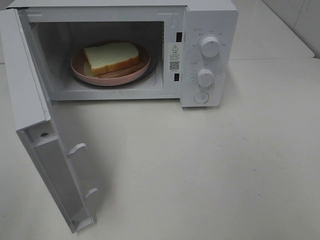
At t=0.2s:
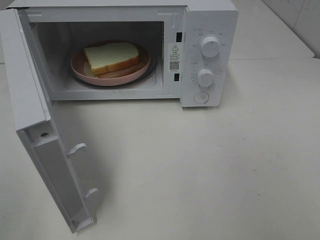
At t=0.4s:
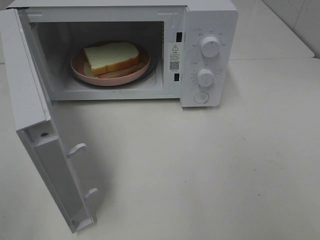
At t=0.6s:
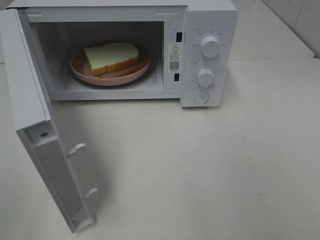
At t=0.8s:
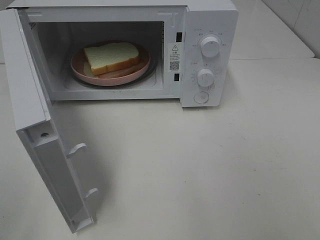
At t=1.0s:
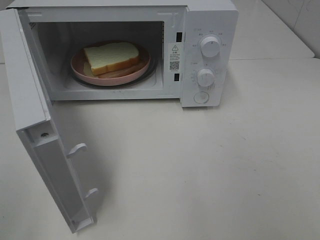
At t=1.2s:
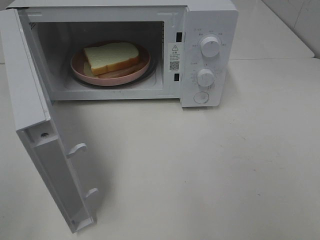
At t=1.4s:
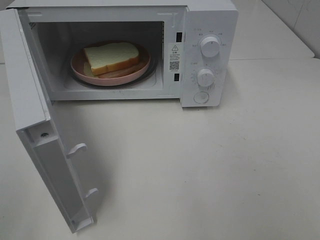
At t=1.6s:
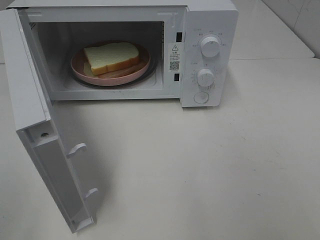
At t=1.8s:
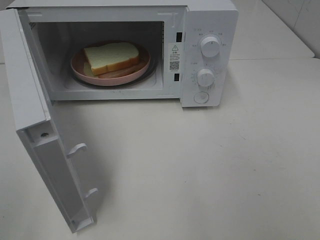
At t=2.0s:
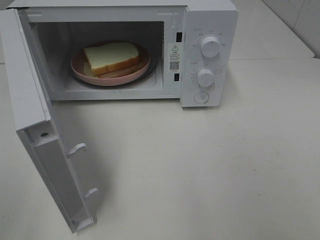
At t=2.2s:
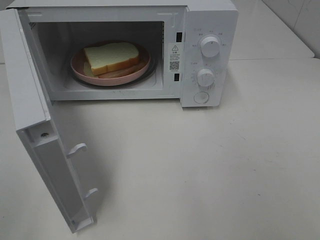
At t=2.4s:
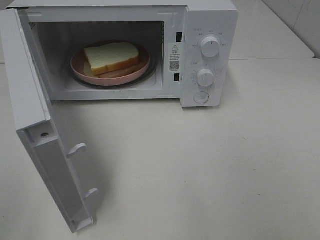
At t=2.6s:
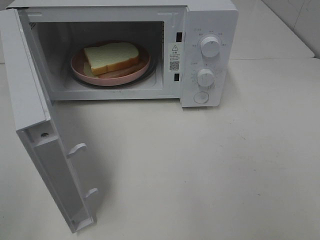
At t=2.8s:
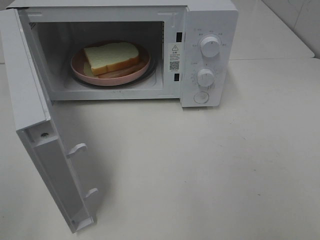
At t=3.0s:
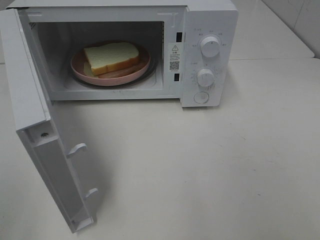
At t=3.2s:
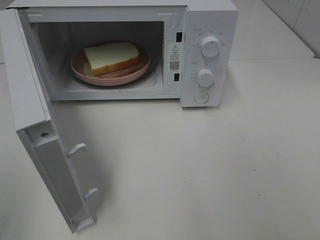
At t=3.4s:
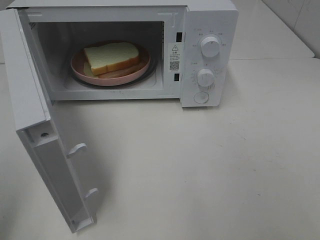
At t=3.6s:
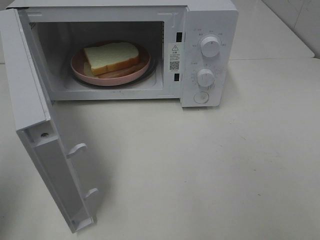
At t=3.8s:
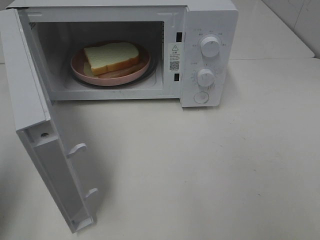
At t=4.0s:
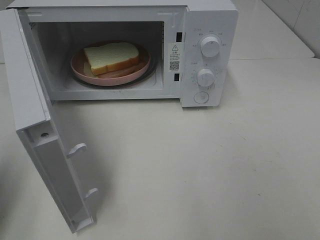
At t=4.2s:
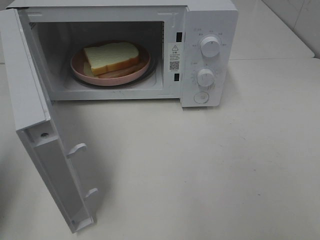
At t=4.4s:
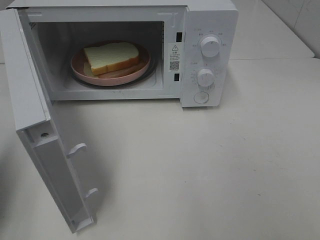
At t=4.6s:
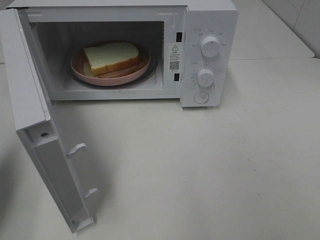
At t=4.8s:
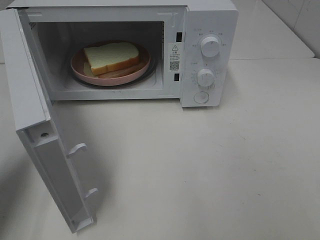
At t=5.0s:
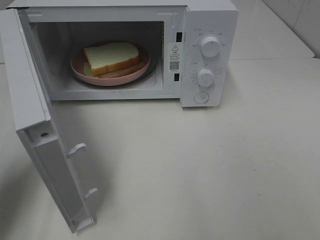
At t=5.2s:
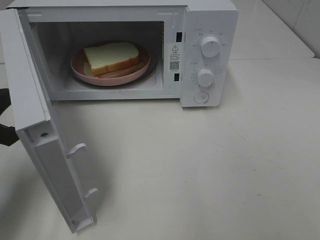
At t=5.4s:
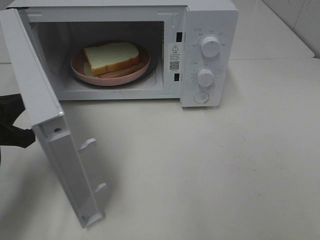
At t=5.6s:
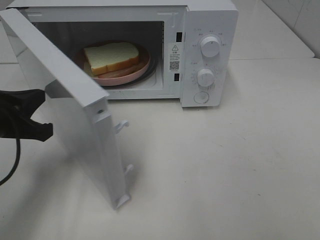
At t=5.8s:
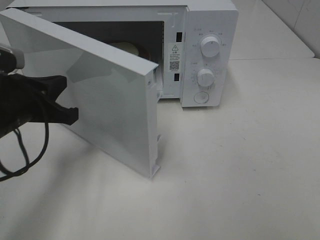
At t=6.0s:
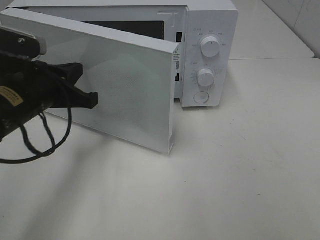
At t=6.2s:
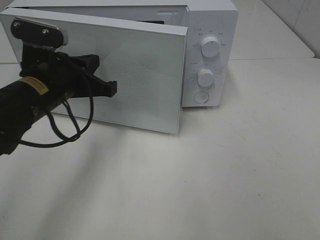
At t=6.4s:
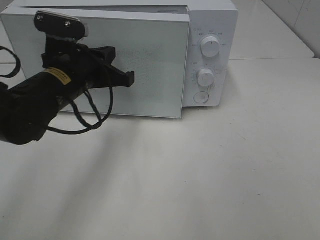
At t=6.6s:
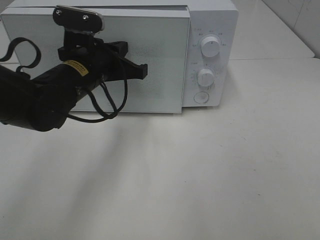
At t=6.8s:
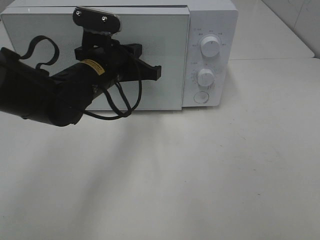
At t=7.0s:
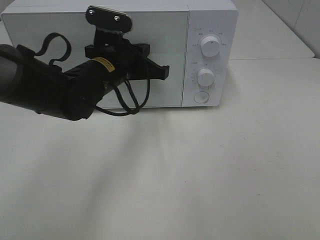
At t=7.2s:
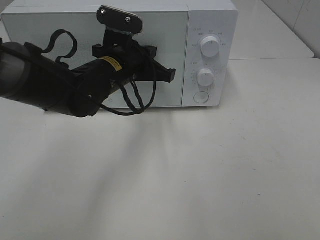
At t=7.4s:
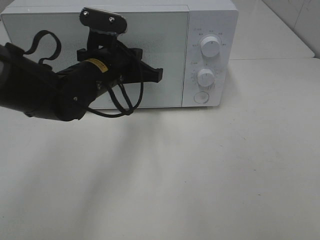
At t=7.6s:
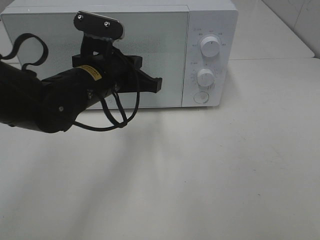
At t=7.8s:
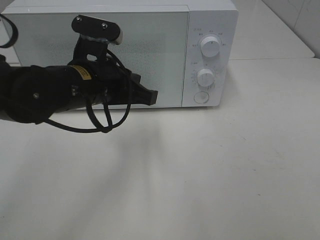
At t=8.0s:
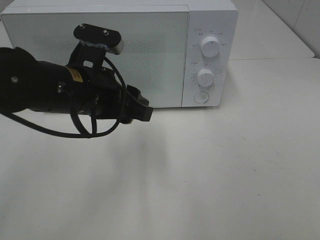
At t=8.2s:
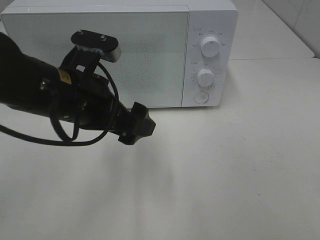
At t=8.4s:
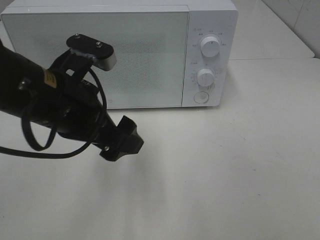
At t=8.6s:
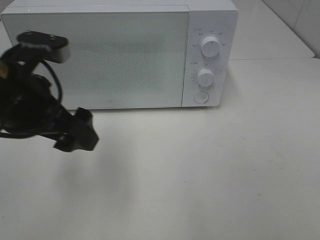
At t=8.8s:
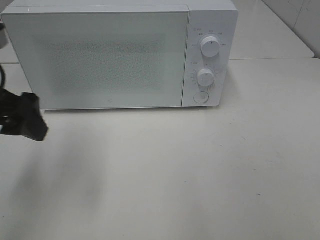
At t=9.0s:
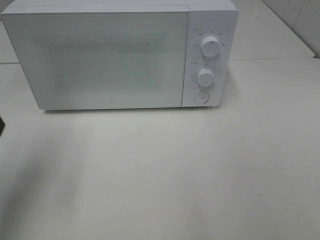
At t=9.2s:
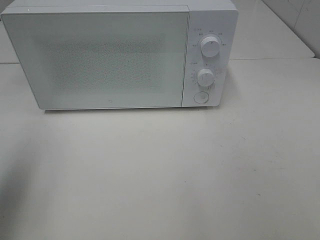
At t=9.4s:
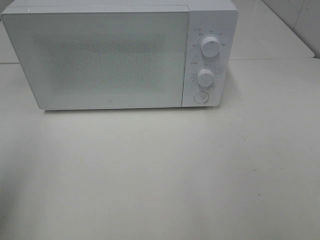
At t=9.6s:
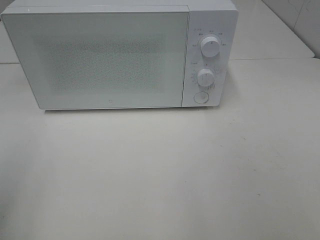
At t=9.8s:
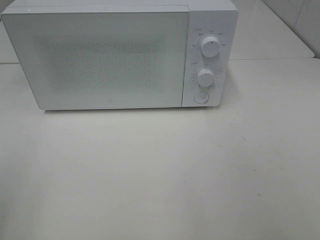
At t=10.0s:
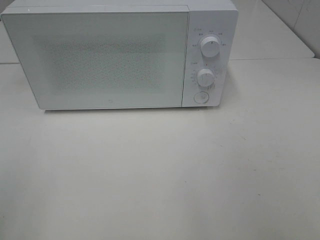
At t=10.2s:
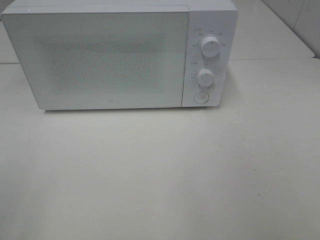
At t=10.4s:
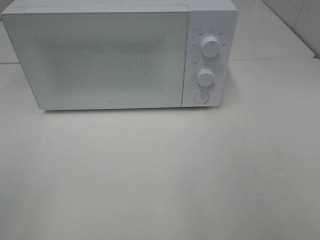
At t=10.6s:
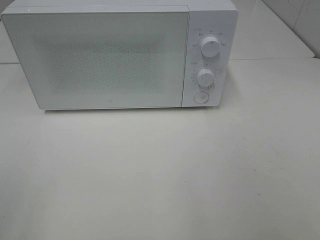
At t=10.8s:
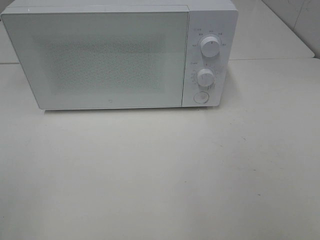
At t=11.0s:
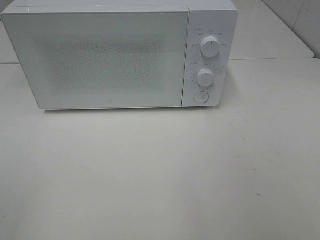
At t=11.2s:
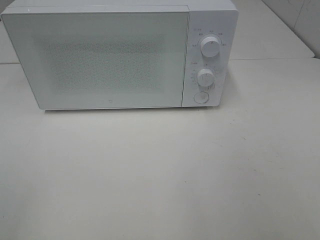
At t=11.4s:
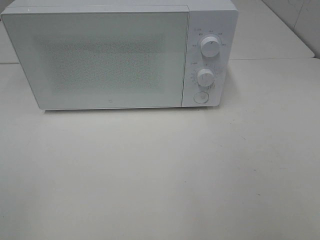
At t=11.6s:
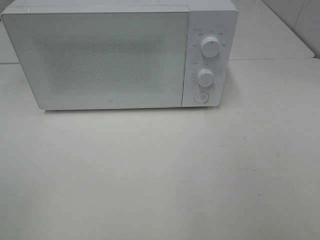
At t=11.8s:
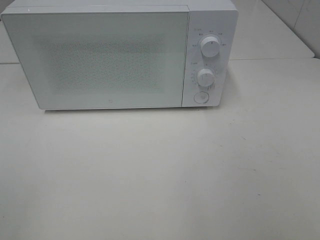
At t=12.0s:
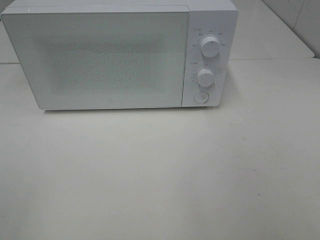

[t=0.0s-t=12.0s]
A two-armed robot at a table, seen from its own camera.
Task of the whole recording: Heat Sandwich.
Step, t=0.0s to t=8.0s: Left hand: close the microwave door.
t=1.6s to t=3.0s: Neither gripper changes place.
t=3.0s to t=4.4s: The left gripper is displaced forward by some 15 cm, and closes its fingers.
t=4.4s to t=6.0s: The left gripper shifts roughly 20 cm to the right and forward.
t=6.0s to t=7.6s: The left gripper travels to the right by roughly 10 cm.
t=7.6s to t=9.0s: The left gripper goes about 25 cm to the left, upward and backward, and opens up.
t=9.0s to t=10.4s: The left gripper moves backward, roughly 20 cm.

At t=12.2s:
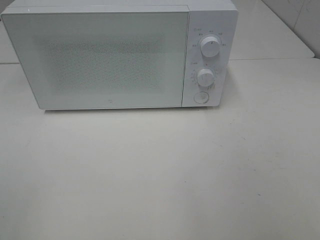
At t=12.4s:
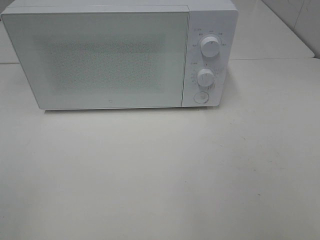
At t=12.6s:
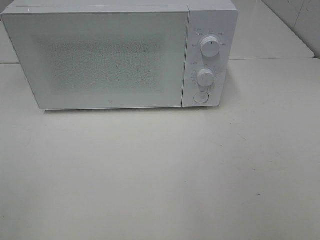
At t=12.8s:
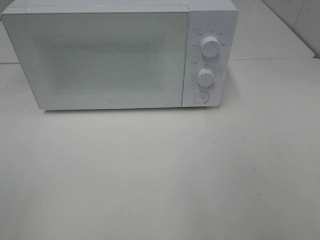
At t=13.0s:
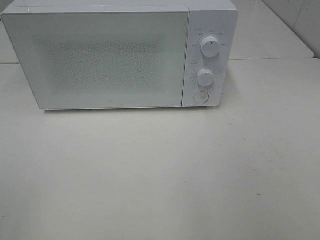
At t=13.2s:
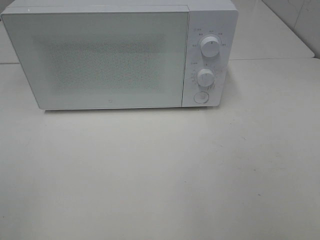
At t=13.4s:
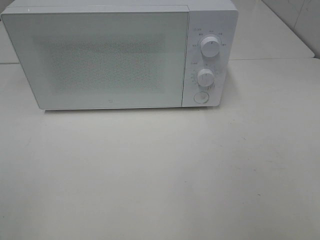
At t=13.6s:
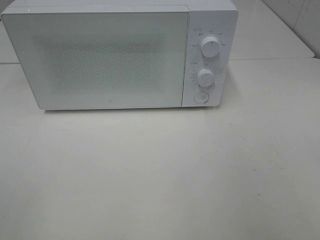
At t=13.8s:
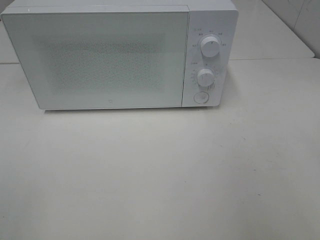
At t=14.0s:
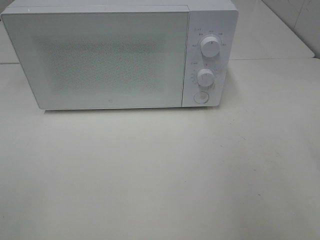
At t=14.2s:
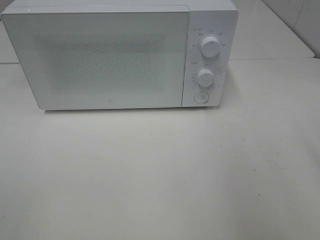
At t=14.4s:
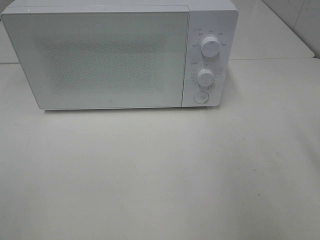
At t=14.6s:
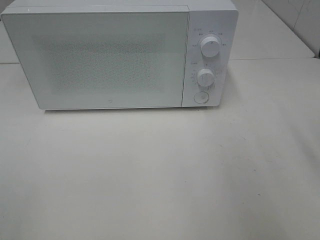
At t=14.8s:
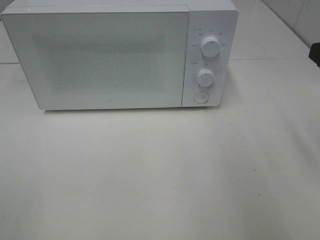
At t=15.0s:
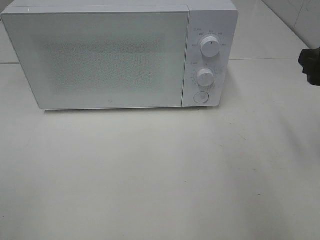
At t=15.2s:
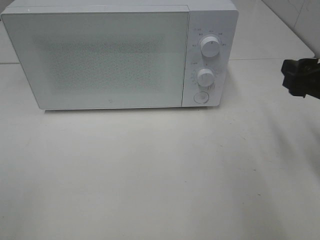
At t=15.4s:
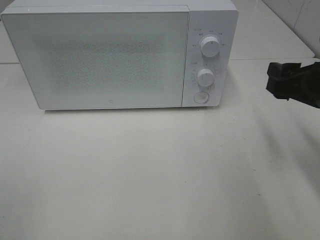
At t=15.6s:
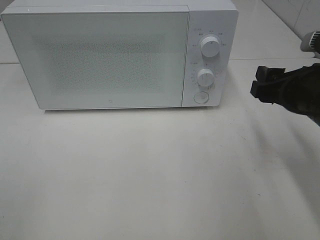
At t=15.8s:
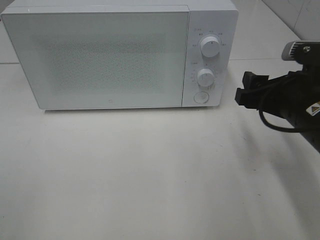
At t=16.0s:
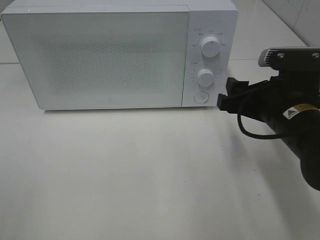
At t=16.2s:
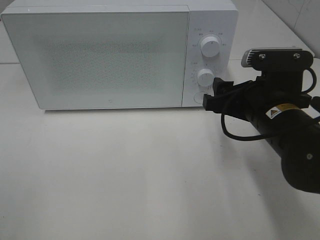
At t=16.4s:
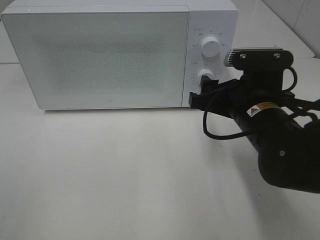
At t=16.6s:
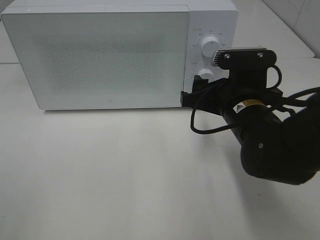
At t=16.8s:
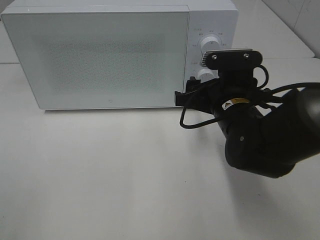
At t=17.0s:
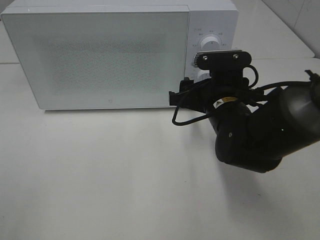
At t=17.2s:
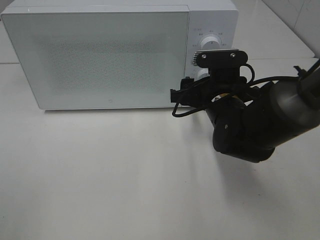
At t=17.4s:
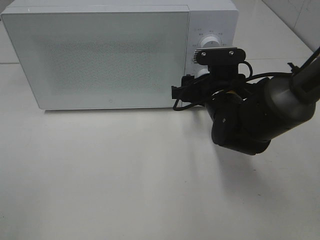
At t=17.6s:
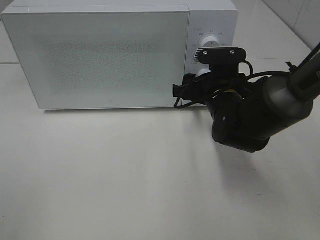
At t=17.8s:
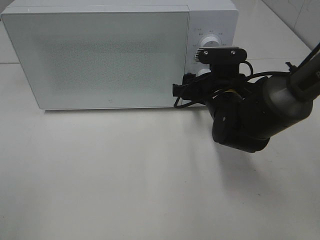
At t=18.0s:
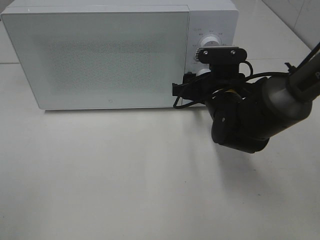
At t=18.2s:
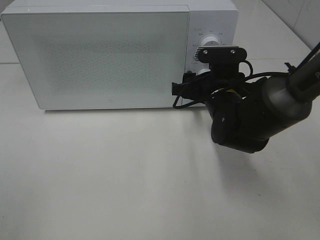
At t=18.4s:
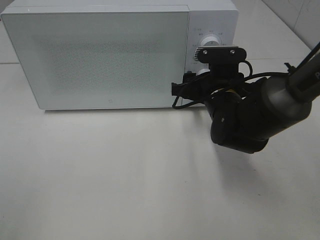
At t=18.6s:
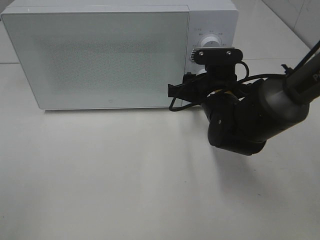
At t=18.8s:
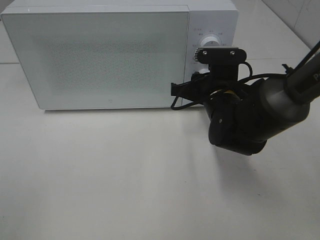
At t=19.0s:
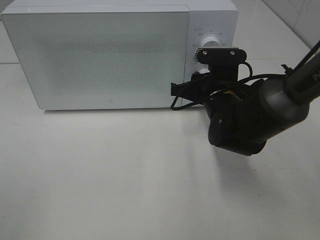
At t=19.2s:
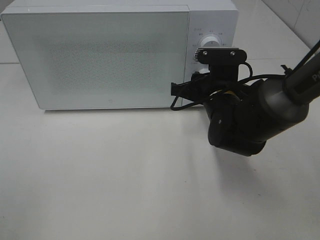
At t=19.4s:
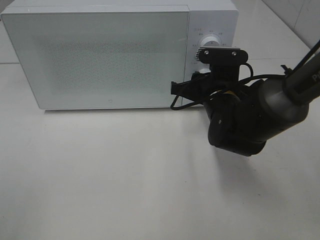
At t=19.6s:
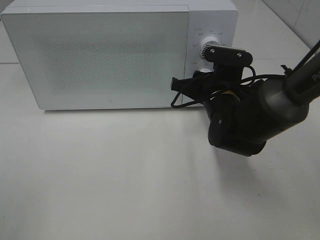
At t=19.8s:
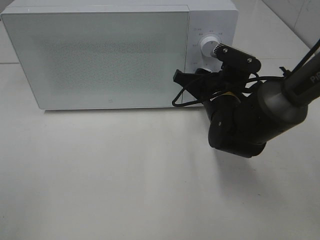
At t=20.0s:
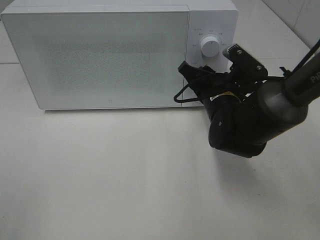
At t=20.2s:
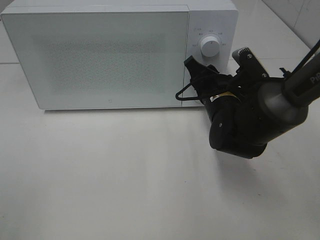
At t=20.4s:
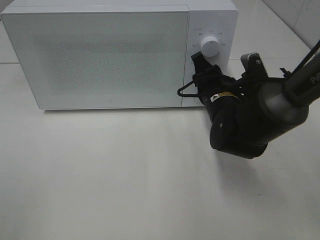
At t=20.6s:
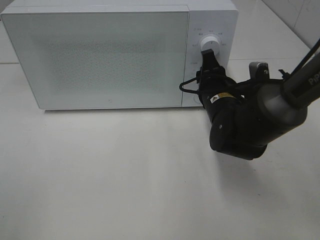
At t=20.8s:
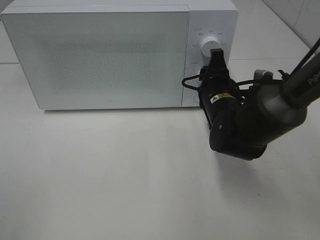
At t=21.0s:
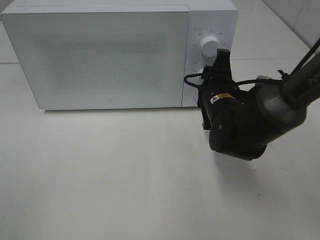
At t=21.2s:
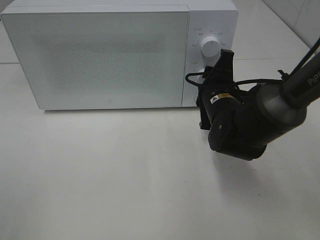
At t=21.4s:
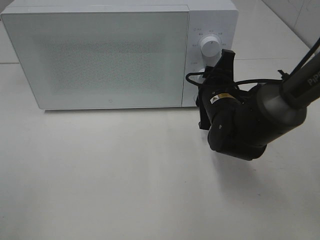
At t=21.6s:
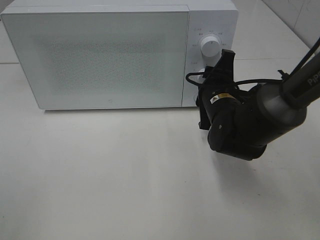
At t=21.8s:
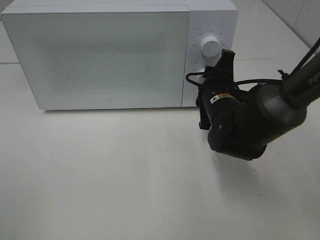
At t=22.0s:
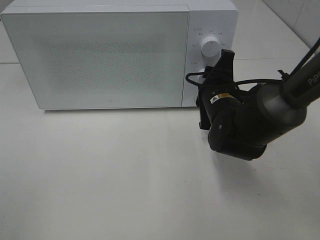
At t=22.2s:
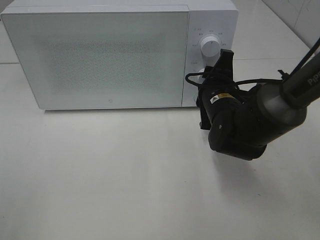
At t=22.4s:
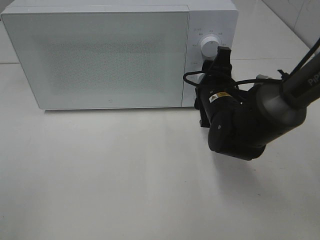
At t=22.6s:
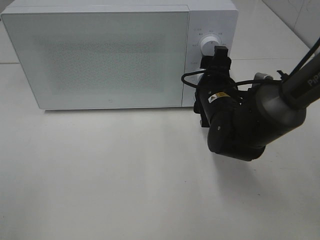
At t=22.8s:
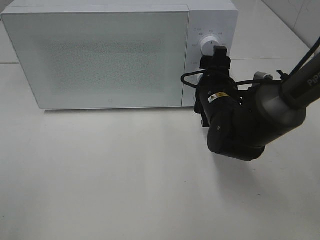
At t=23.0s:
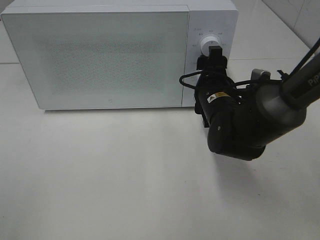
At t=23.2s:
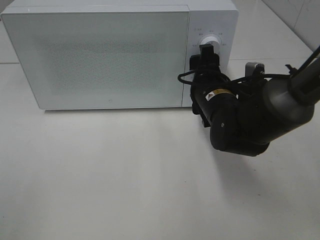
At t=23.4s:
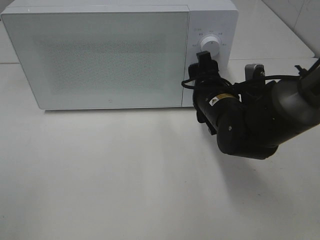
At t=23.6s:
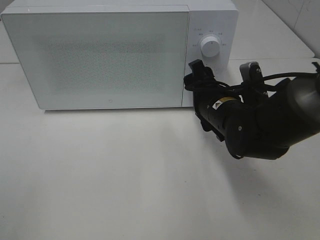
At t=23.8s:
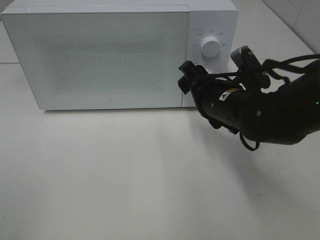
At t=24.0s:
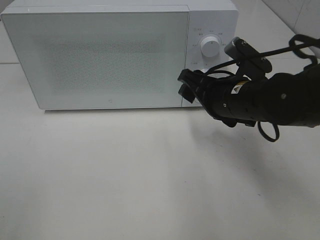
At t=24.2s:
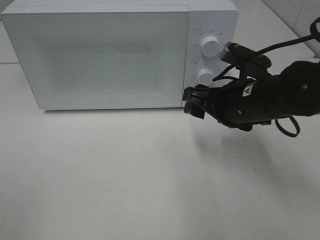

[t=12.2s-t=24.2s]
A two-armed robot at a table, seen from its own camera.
Task of the whole recording: Heat Sandwich.
Step, t=12.2s to t=24.2s: Right hand: twist timer button.
t=13.8s to t=15.2s: The right gripper travels forward and downward by approximately 15 cm.
t=15.2s to t=16.6s: The right gripper shifts approximately 15 cm to the left and downward.
t=16.6s to t=18.2s: The right gripper travels forward by about 5 cm.
t=21.2s to t=22.6s: The right gripper opens.
t=22.6s to t=24.2s: The right gripper changes place by some 5 cm.
